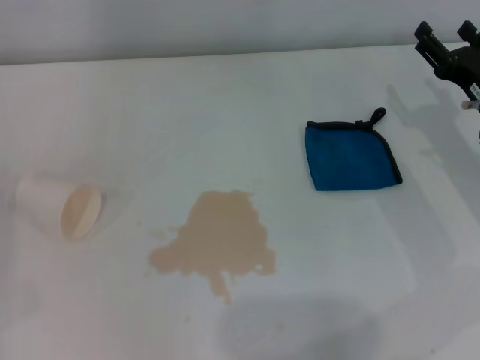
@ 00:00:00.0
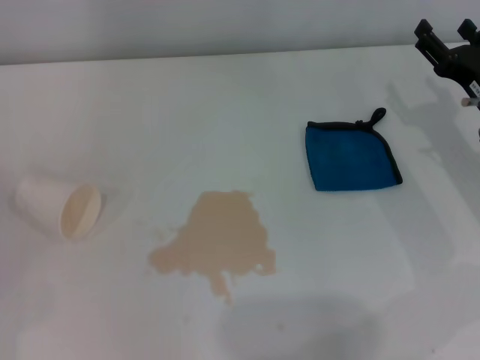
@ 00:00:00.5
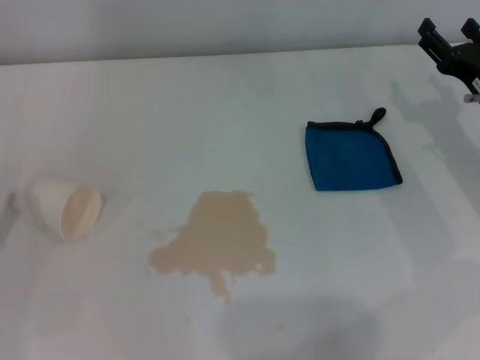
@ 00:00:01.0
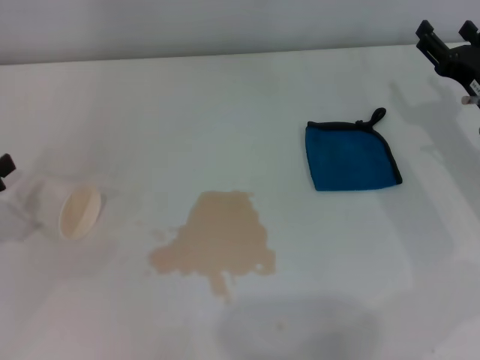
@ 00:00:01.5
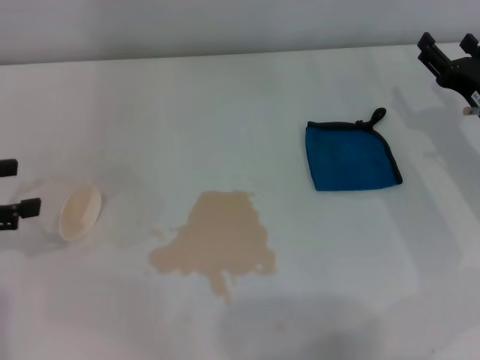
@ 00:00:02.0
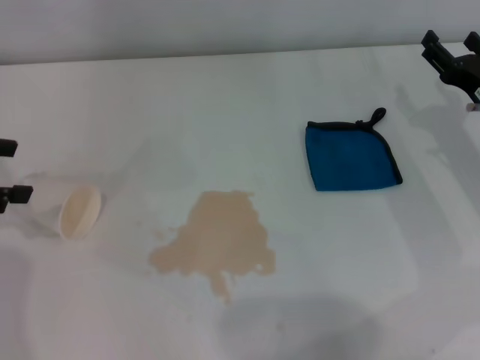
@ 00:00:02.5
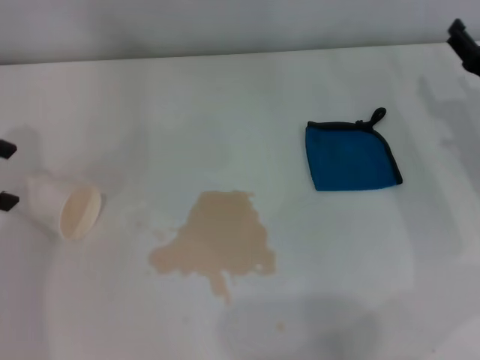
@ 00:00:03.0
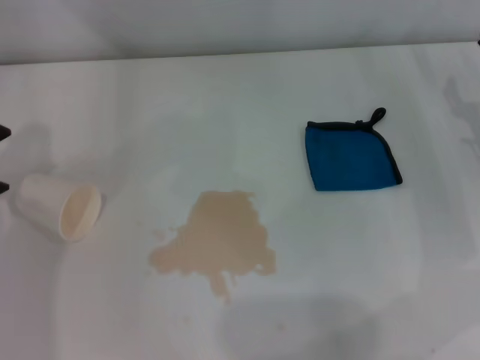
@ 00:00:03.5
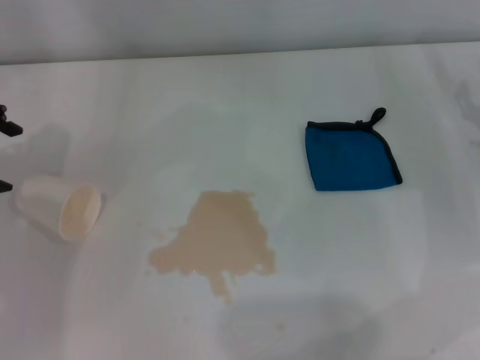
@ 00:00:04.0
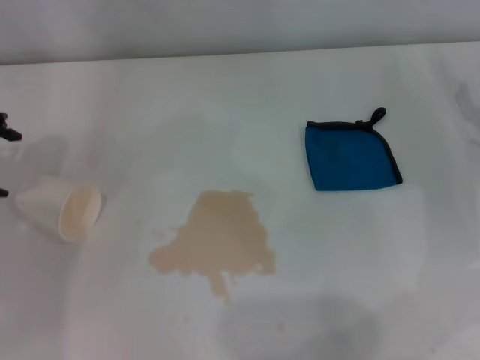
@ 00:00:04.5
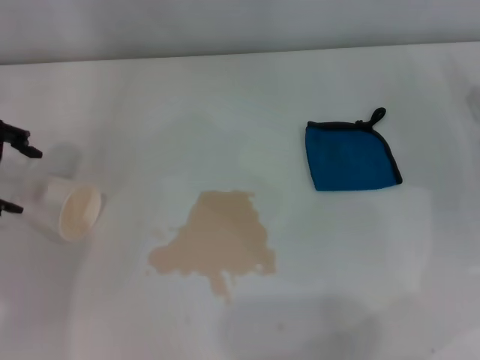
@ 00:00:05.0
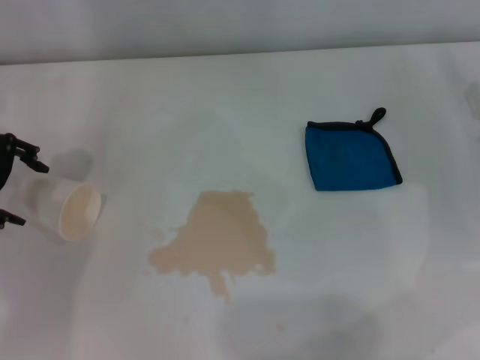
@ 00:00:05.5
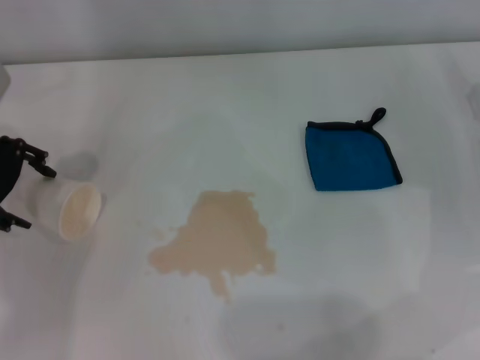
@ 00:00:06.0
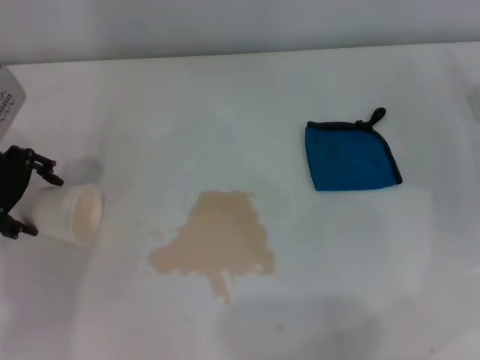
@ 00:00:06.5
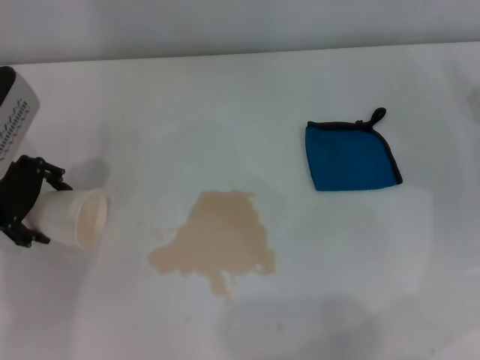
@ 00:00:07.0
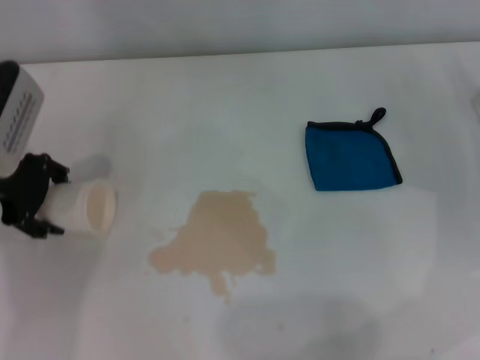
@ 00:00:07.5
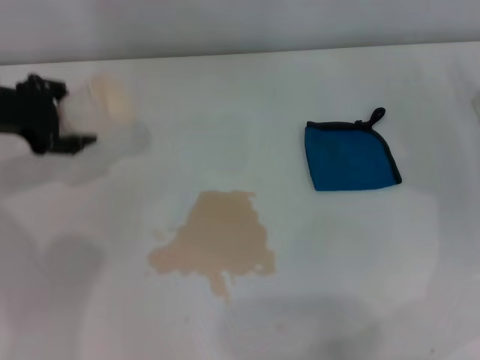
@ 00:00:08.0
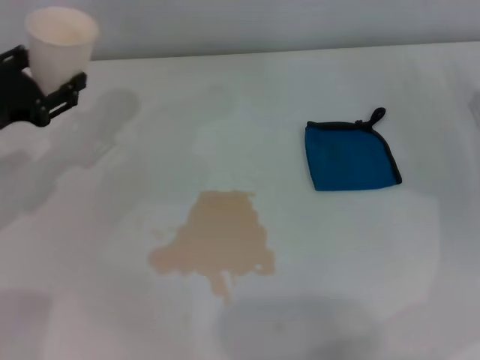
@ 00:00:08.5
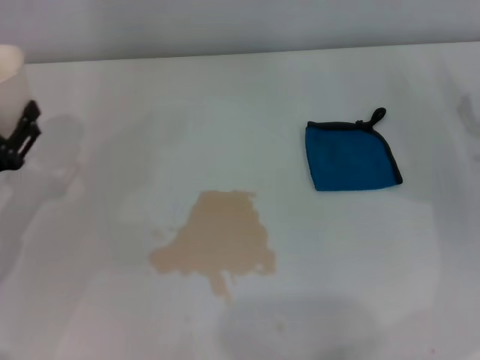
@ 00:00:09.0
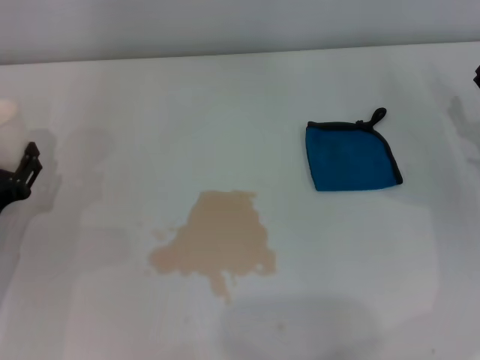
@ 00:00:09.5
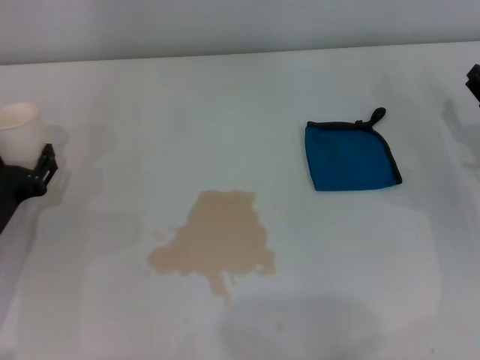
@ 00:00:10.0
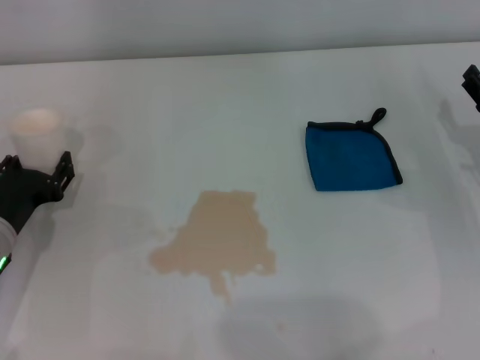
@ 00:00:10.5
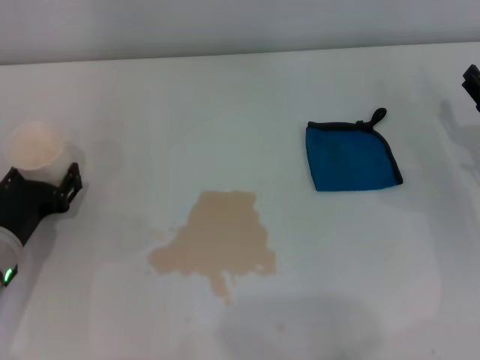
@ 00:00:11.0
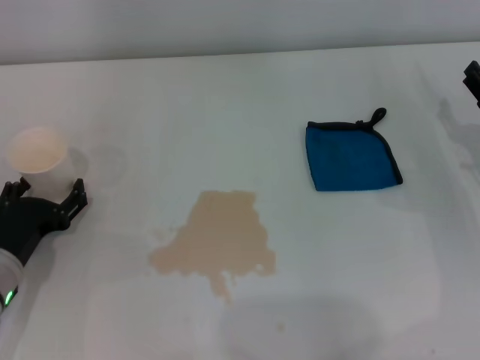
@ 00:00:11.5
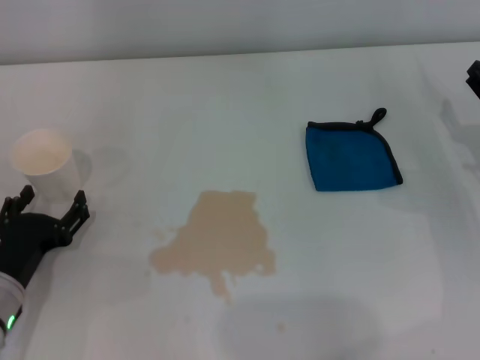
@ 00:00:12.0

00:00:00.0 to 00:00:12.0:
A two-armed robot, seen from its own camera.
Step, 00:00:00.0 to 00:00:07.0: Grasp the paper cup with the left gripper.
Step, 00:00:07.5 to 00:00:10.5: Stand the paper cup upright with the left gripper.
00:00:00.0 to 00:00:02.0: The left gripper moves upward and forward, approximately 15 cm.
00:00:02.0 to 00:00:04.0: The left gripper goes some 15 cm forward, upward and to the right.
00:00:04.0 to 00:00:06.0: The left gripper heads downward, covering about 5 cm.
00:00:06.0 to 00:00:08.0: The left gripper closes up.
00:00:08.0 to 00:00:10.0: The left gripper moves downward and backward, approximately 20 cm.
00:00:10.0 to 00:00:12.0: The left gripper moves backward, roughly 5 cm, and opens.

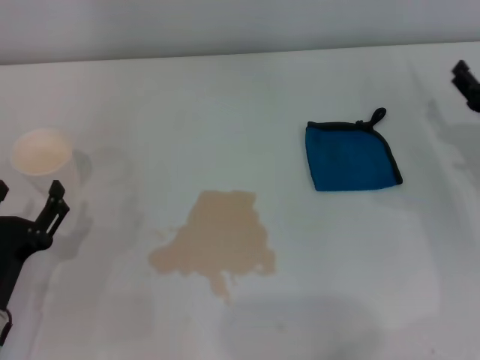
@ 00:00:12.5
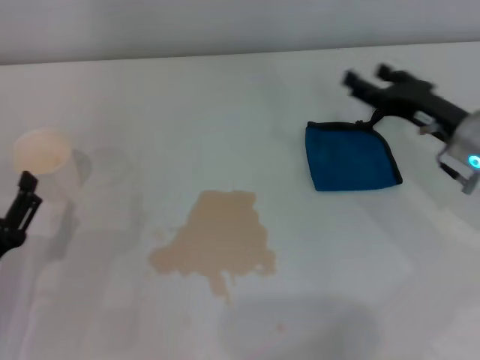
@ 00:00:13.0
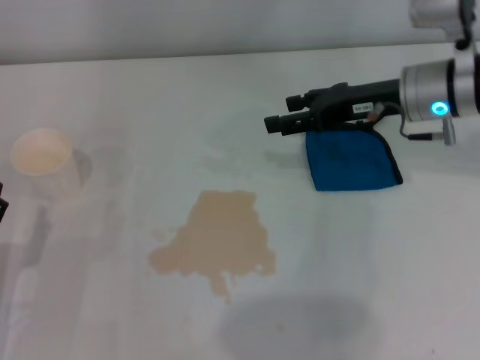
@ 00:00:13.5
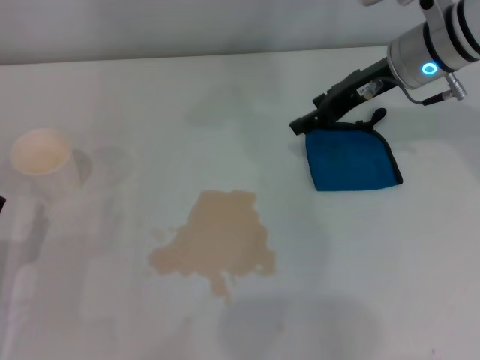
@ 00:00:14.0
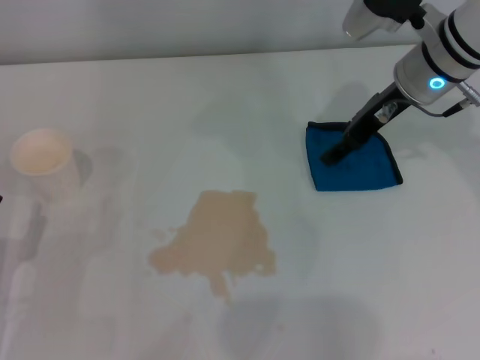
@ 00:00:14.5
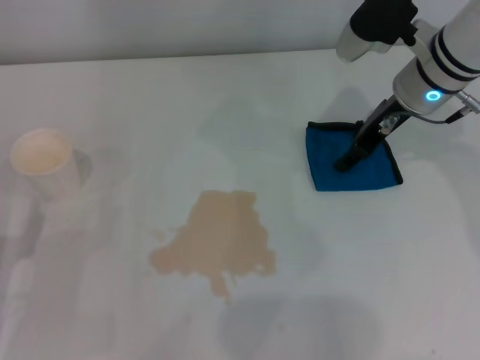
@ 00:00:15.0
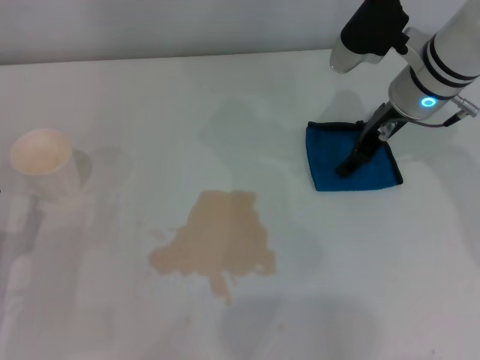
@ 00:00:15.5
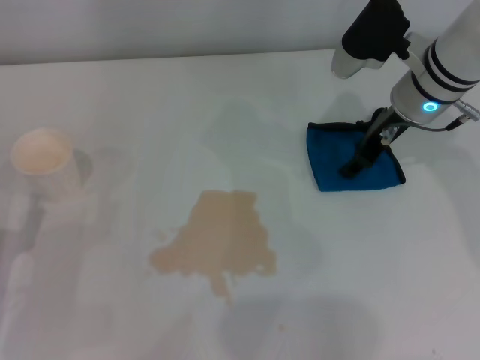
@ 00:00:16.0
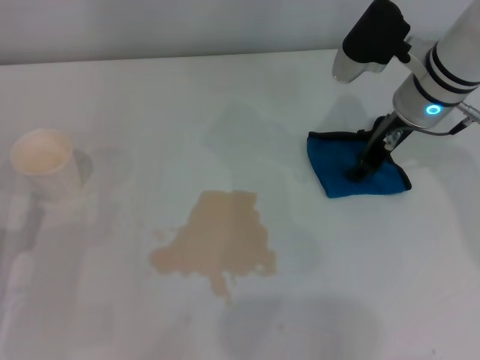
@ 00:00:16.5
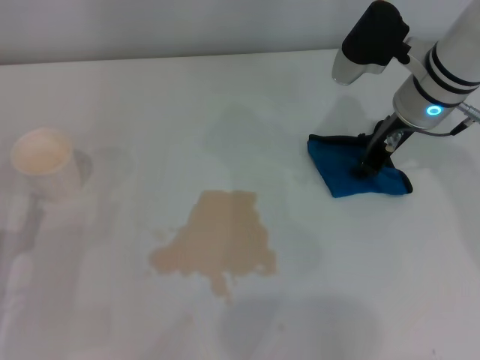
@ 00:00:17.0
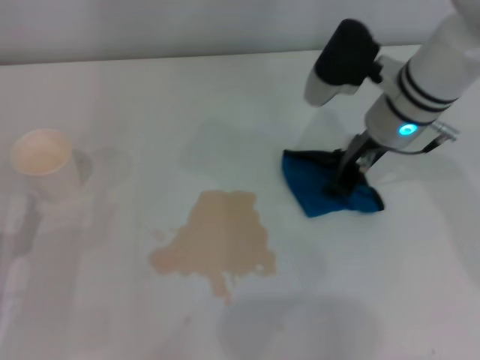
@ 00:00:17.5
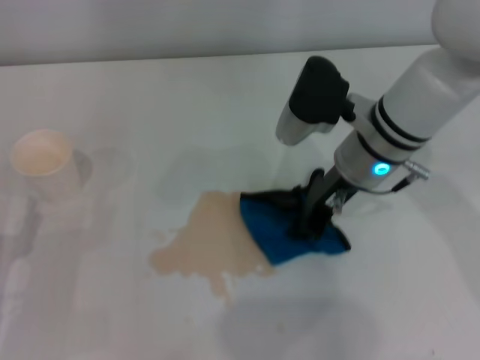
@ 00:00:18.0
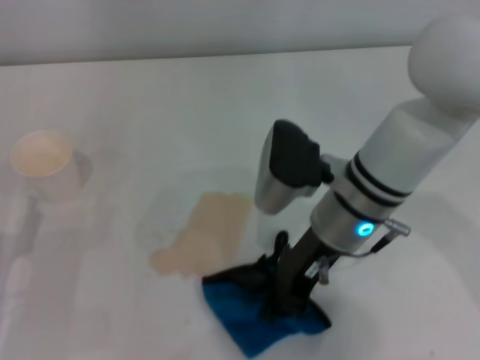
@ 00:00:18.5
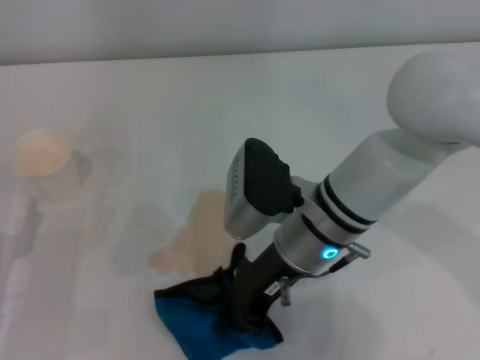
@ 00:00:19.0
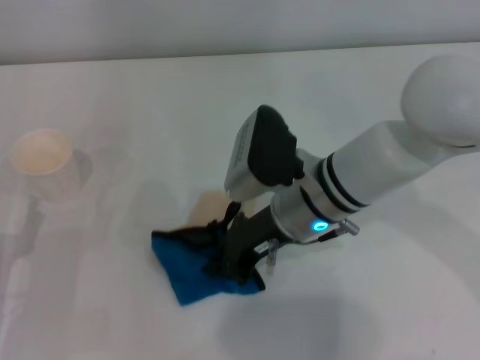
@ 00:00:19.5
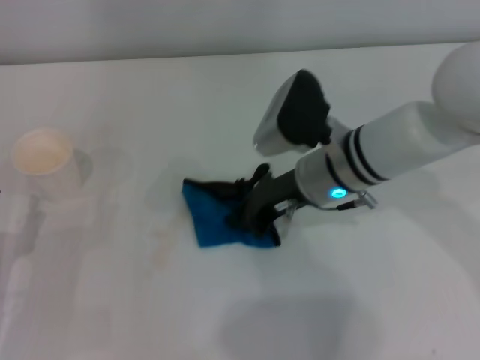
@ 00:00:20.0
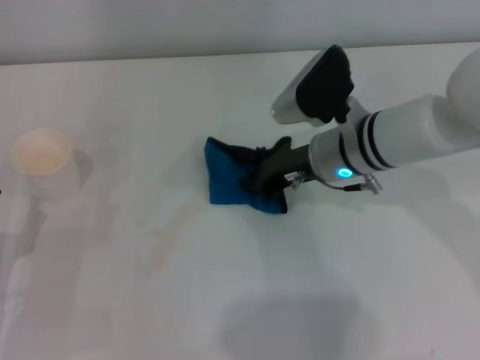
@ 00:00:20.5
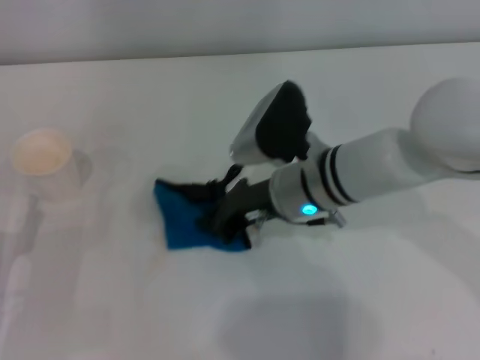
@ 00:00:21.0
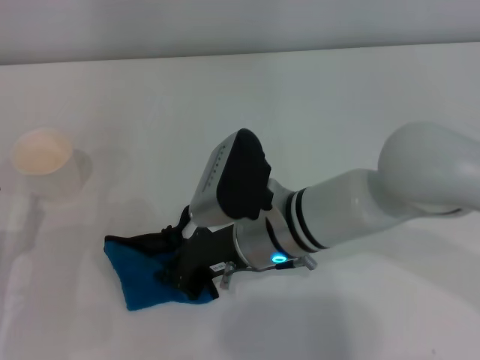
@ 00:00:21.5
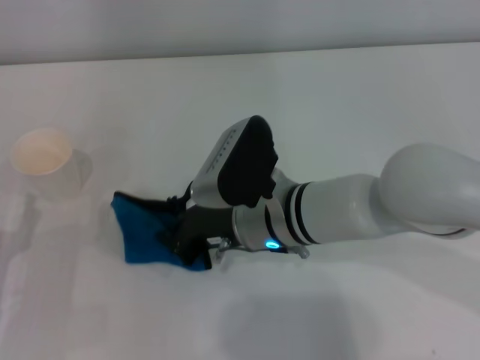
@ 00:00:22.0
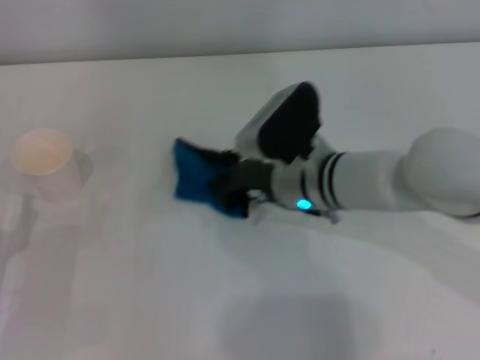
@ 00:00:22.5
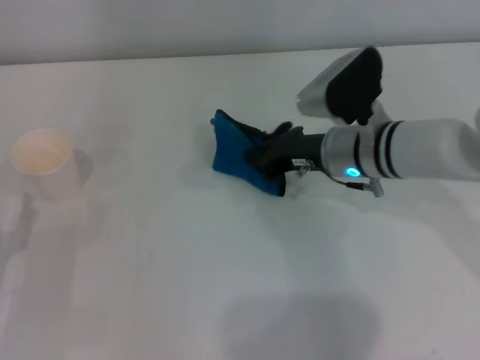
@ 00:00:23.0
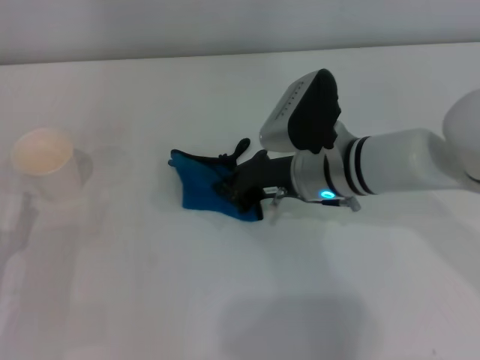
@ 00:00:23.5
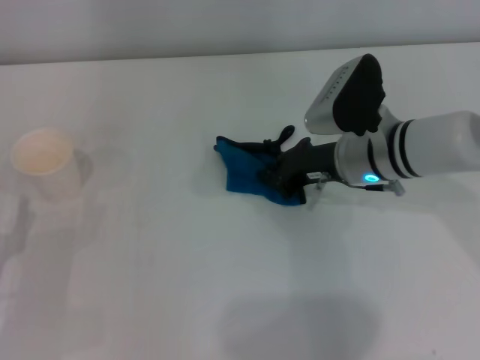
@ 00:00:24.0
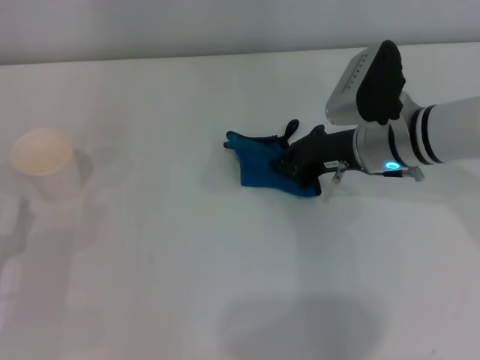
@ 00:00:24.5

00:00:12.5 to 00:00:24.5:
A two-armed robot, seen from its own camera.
Step, 00:00:12.5 to 00:00:17.0: Grasp the rag with the right gripper.
Step, 00:00:17.5 to 00:00:24.0: Wipe the stains off the table with the right gripper.
00:00:12.5 to 00:00:14.5: The right gripper moves forward, upward and to the left, approximately 20 cm.
00:00:14.5 to 00:00:16.5: The grippers move only a little.
00:00:16.5 to 00:00:18.5: The right gripper travels backward and to the left by some 15 cm, and closes.
00:00:18.5 to 00:00:20.5: The right gripper heads forward, covering approximately 5 cm.
00:00:22.5 to 00:00:24.5: The right gripper heads to the right, covering about 10 cm.

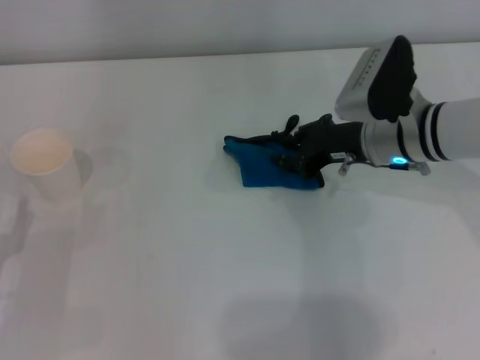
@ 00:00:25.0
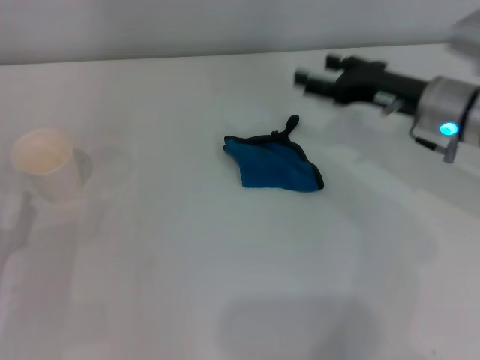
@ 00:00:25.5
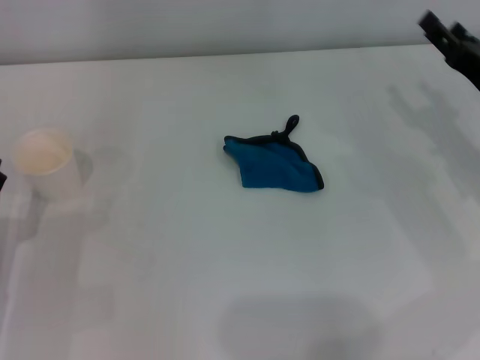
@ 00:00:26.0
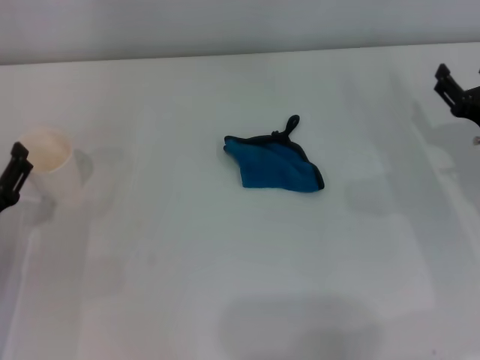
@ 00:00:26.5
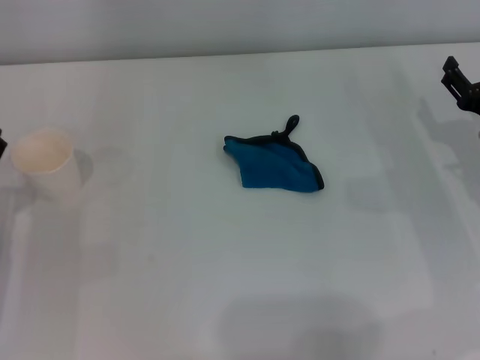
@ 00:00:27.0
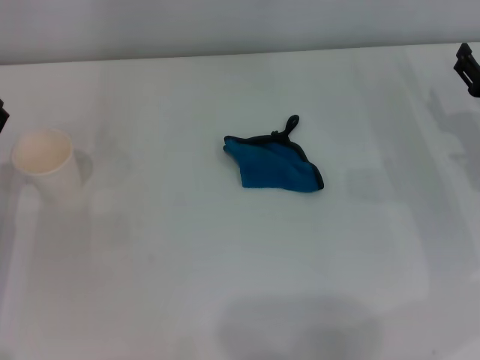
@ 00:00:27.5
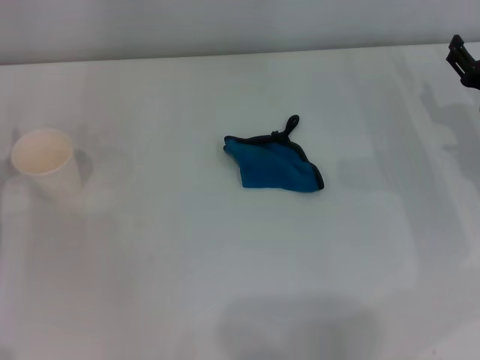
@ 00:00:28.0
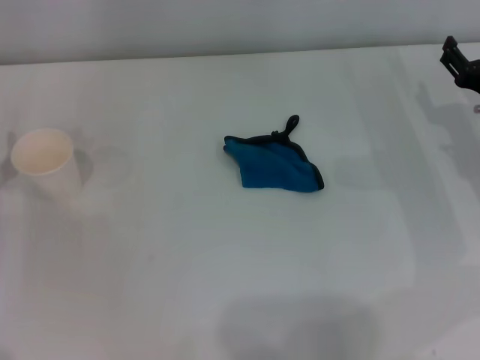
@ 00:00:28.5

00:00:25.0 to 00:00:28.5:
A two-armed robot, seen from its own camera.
00:00:25.0 to 00:00:27.0: The right gripper shifts about 15 cm to the right and backward, and opens up. The left gripper heads forward, covering roughly 5 cm.
00:00:27.0 to 00:00:28.5: The grippers make only small movements.
